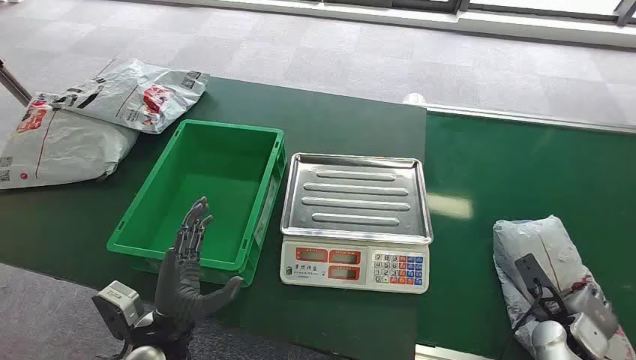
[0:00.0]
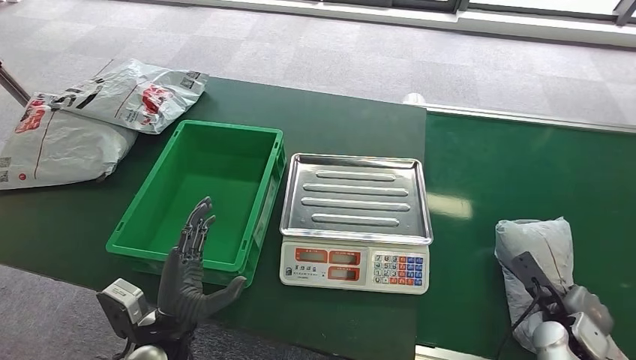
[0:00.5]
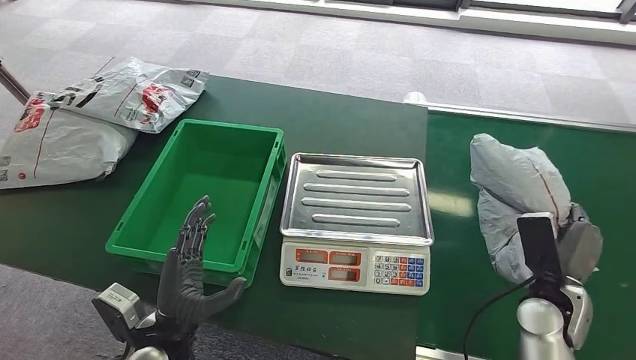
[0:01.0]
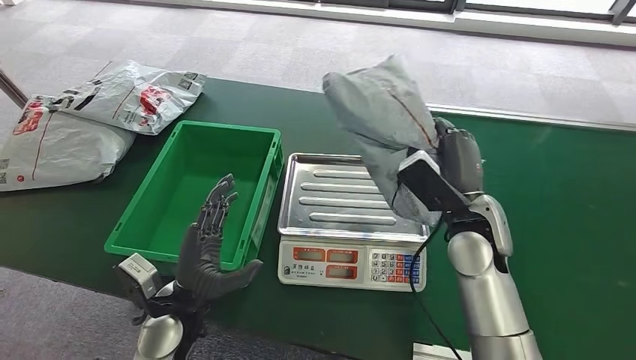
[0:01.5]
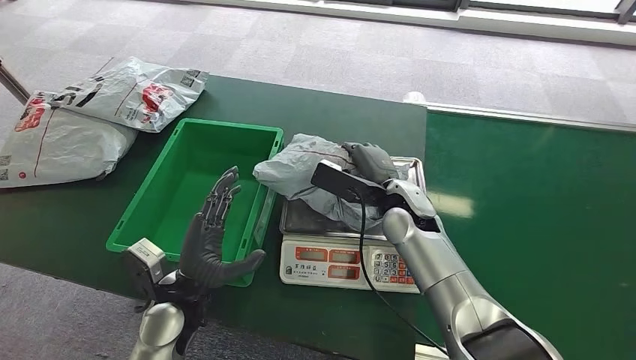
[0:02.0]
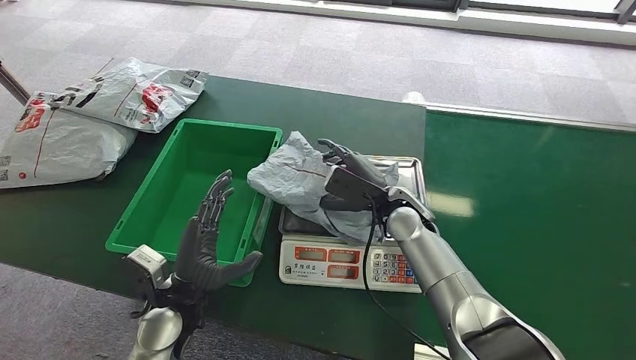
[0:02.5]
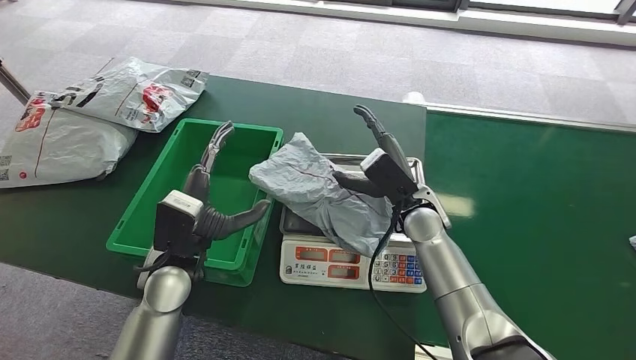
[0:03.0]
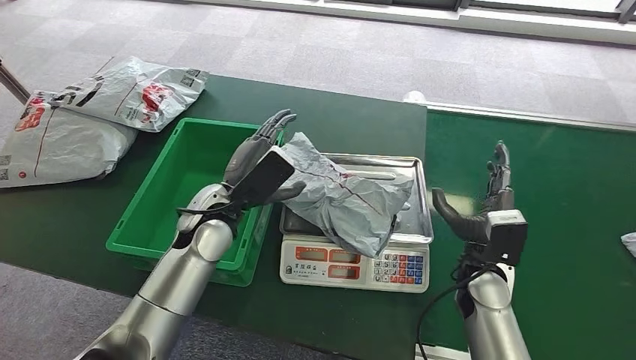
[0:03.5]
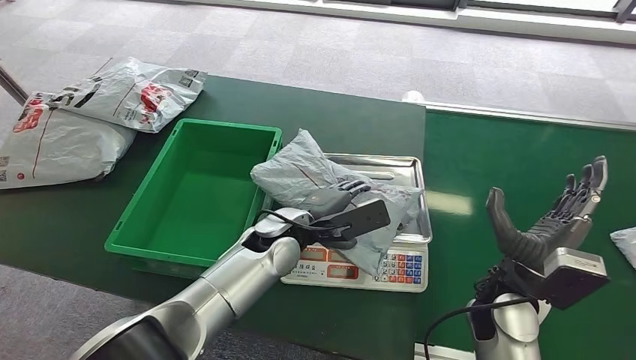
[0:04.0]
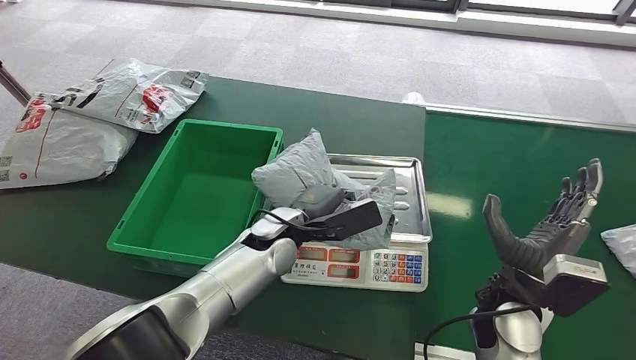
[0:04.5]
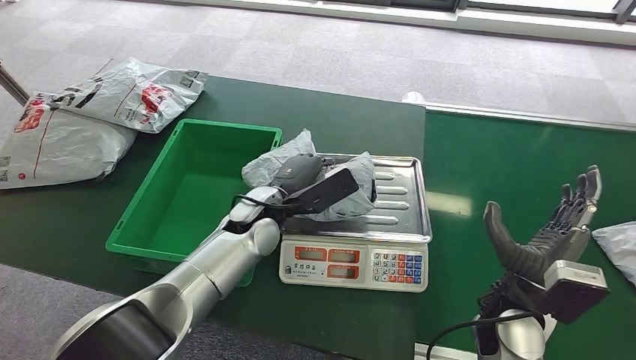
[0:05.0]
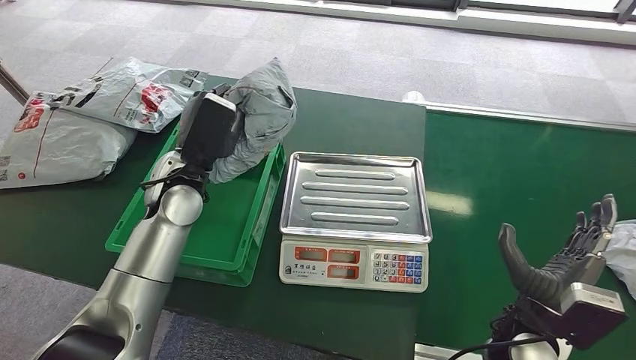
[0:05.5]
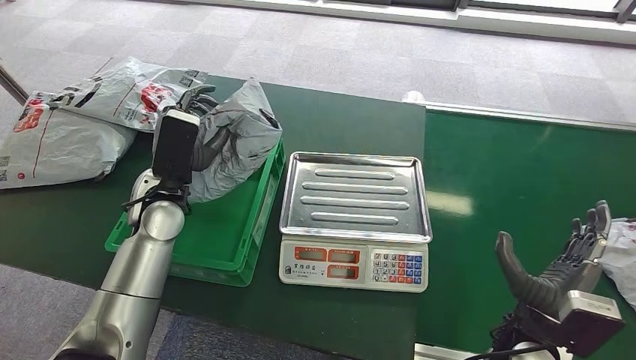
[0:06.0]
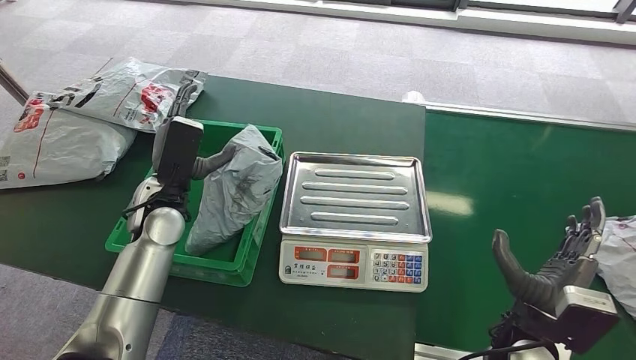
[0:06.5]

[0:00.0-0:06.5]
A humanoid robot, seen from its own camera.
Task of the whole recording: Weigh the package on the weighing device and place it in the left basket.
Step, 0:00.0 to 0:01.0: Pick up the package from the conveyor belt.
Step, 0:01.5 to 0:02.0: Place the package onto the inbound machine.
Step, 0:05.5 to 0:06.5: Place the package into the parcel locker.
